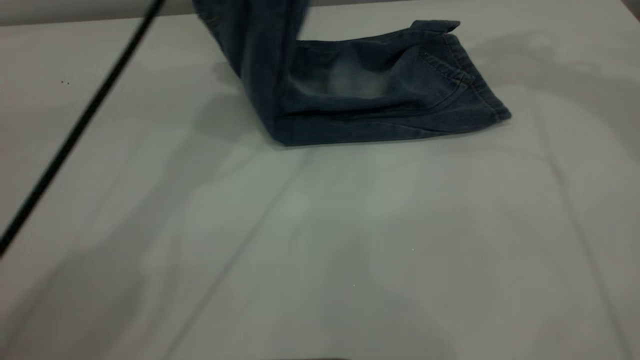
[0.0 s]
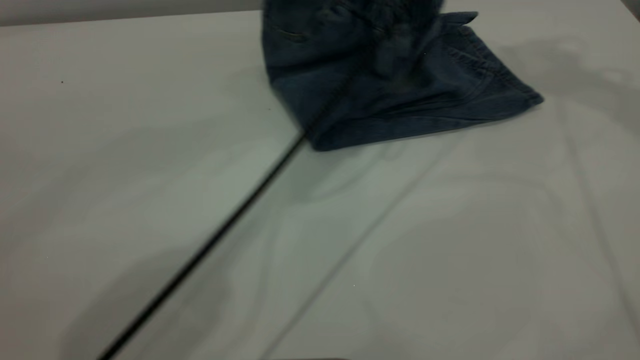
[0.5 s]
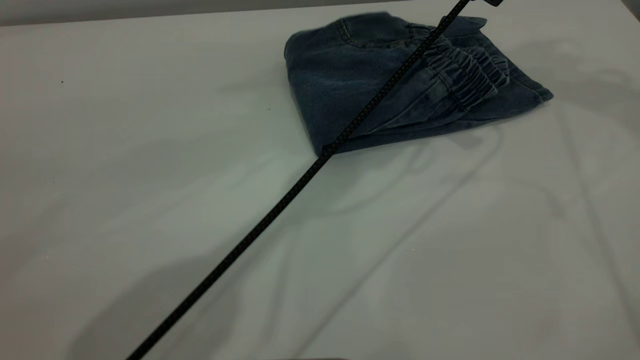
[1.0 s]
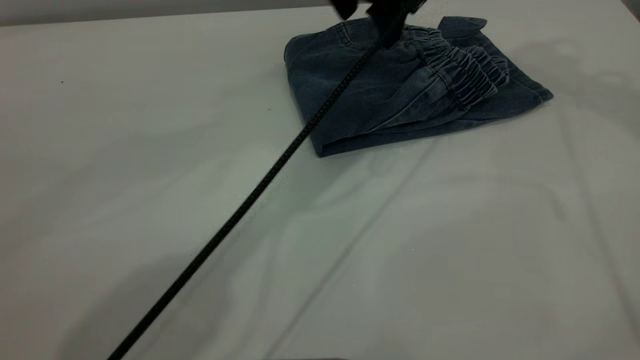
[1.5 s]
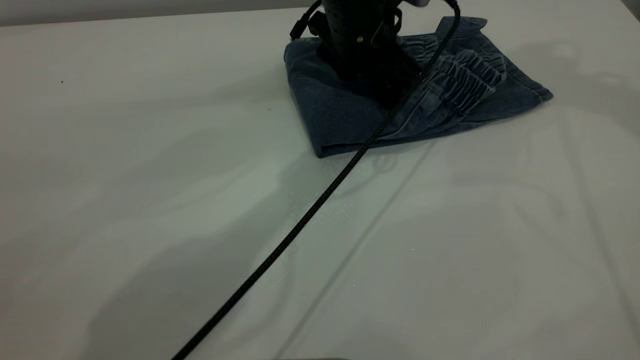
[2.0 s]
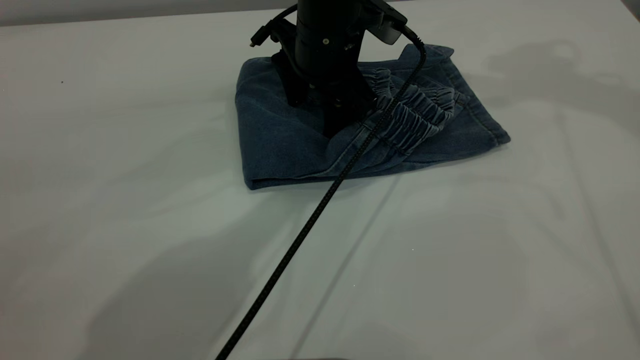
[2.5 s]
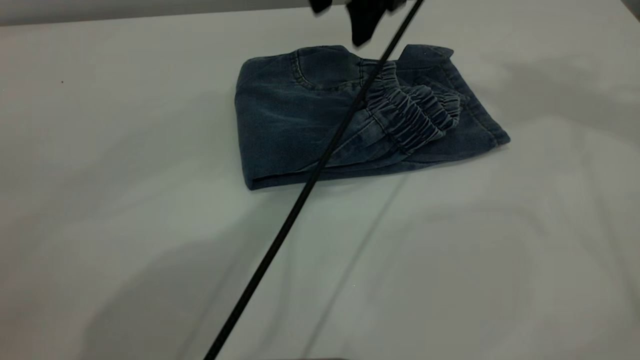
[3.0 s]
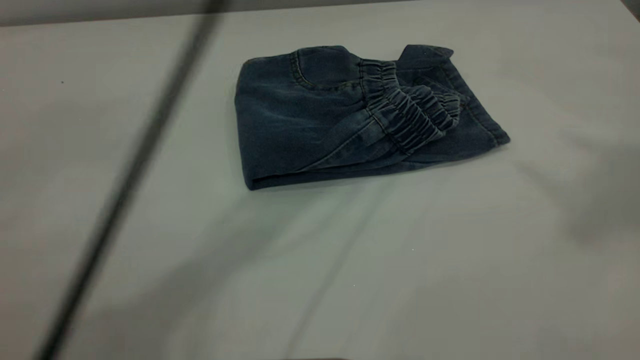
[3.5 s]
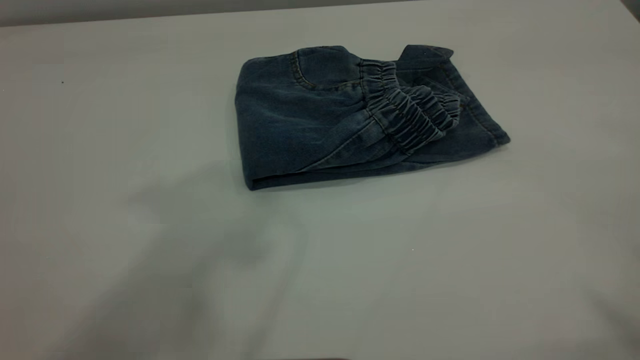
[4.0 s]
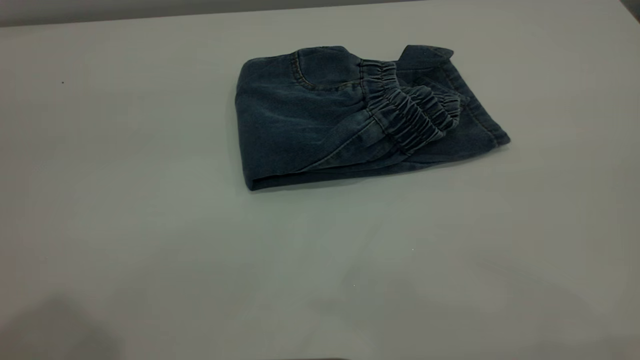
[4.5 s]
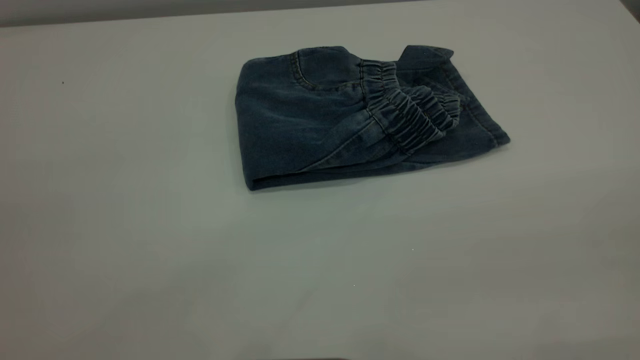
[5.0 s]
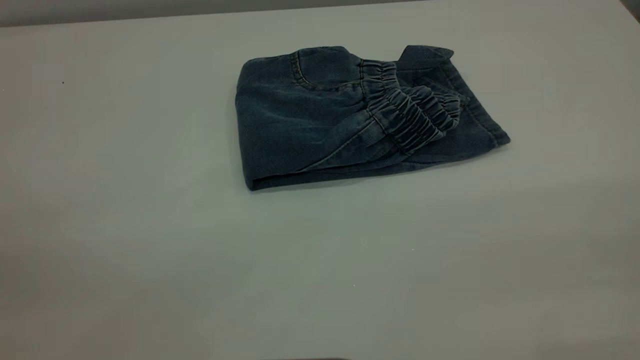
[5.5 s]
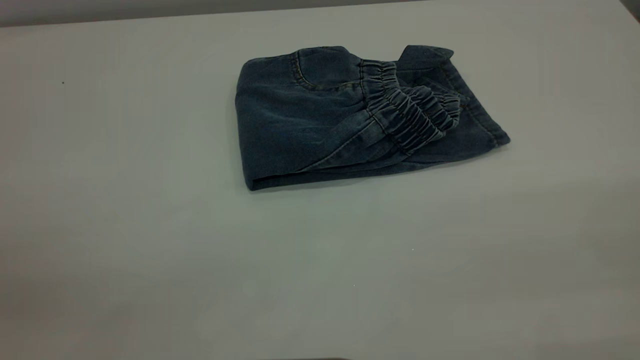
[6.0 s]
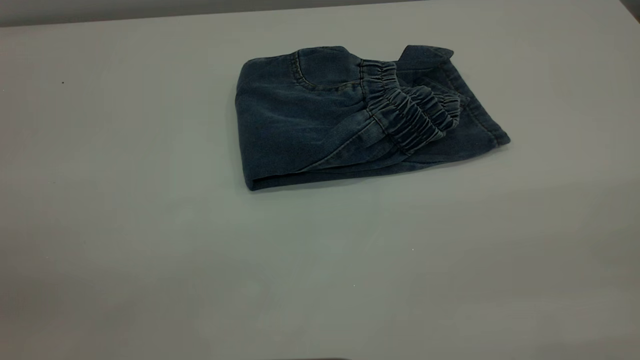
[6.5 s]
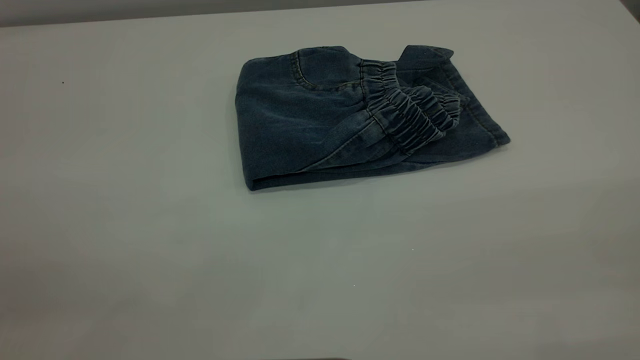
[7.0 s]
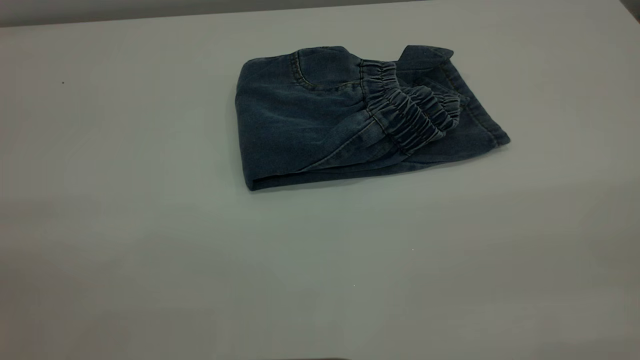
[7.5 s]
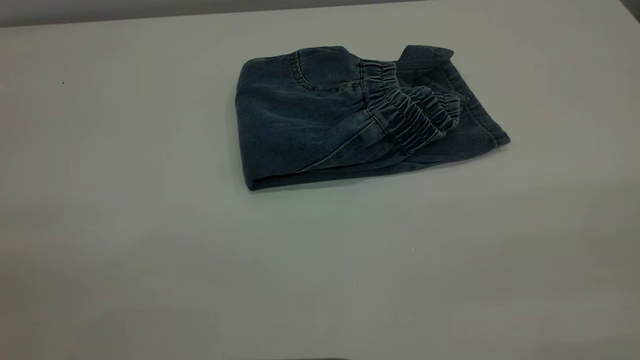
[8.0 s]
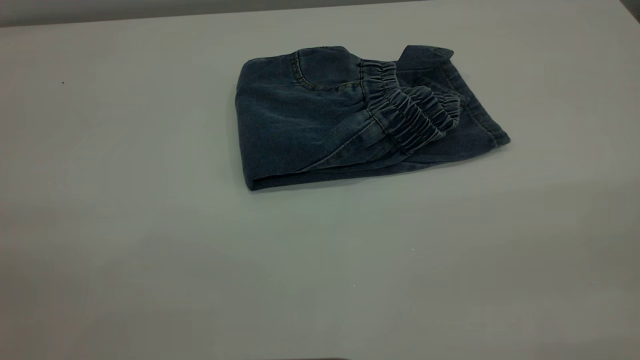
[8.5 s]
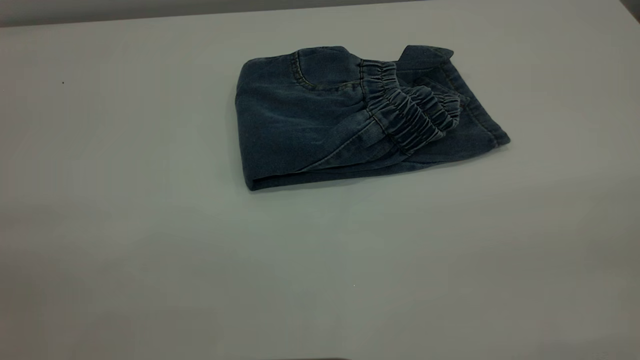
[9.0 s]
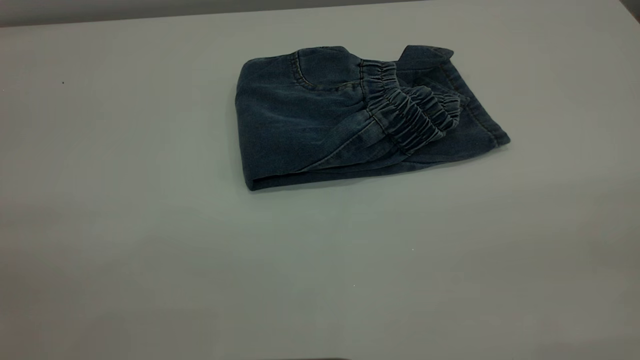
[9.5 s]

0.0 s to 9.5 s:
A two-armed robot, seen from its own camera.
0.0 to 2.0 s: The left gripper heads downward and to the right, covering roughly 20 cm, and opens up. Meanwhile the right gripper moves approximately 5 cm.
2.0 to 4.0 s: The left gripper moves upward, backward and to the left, approximately 50 cm; the right gripper shifts some 35 cm backward and upward.
